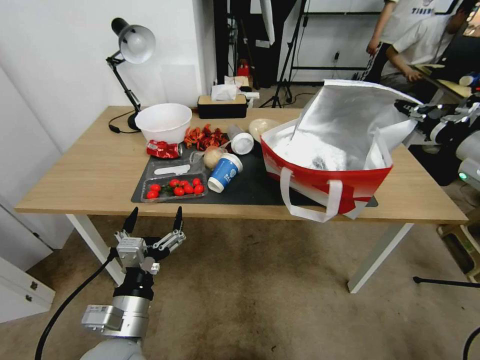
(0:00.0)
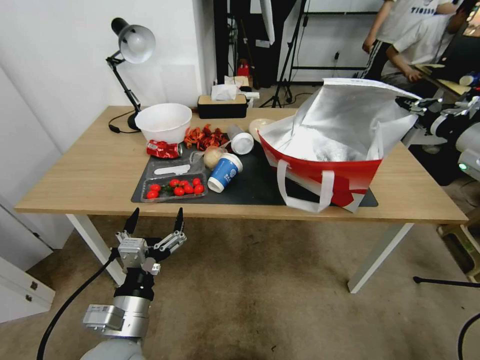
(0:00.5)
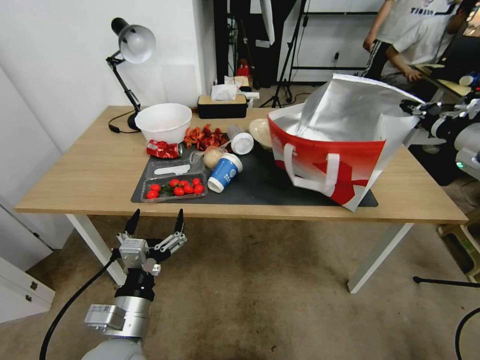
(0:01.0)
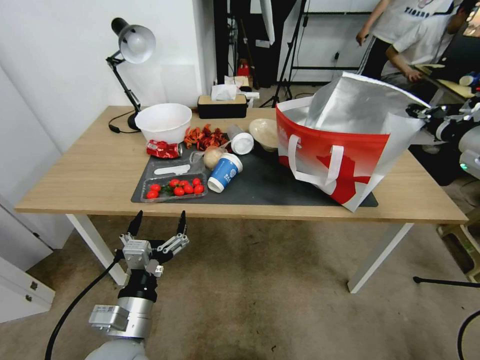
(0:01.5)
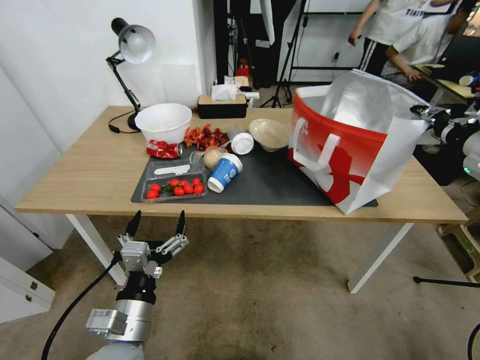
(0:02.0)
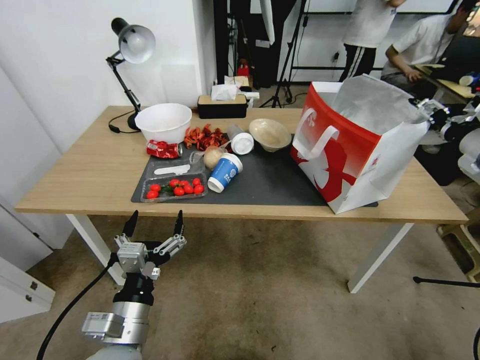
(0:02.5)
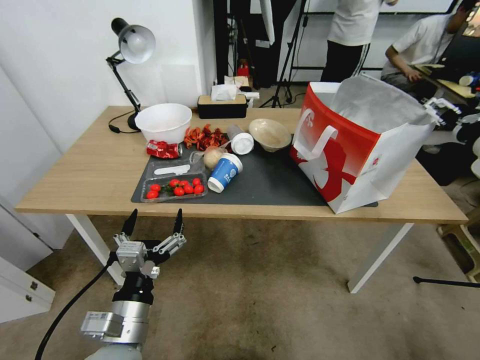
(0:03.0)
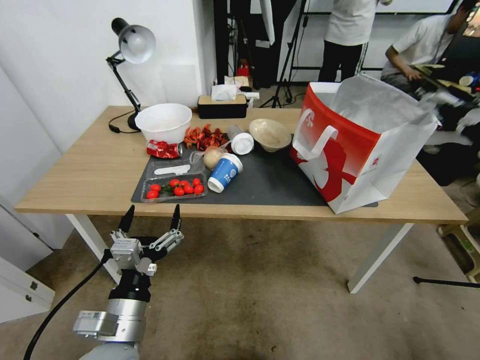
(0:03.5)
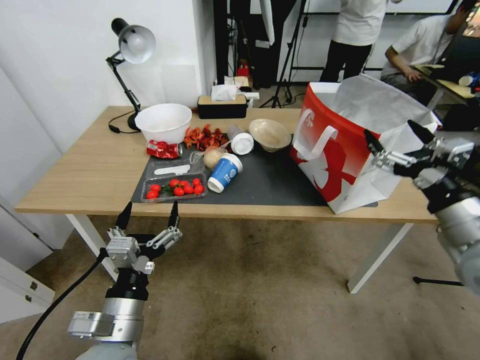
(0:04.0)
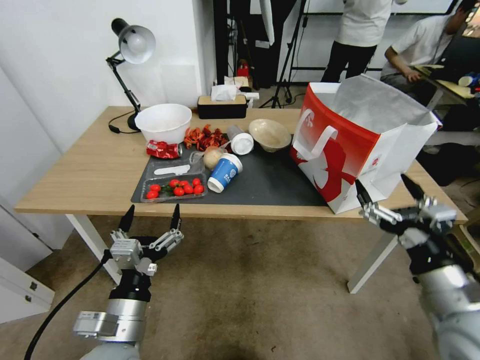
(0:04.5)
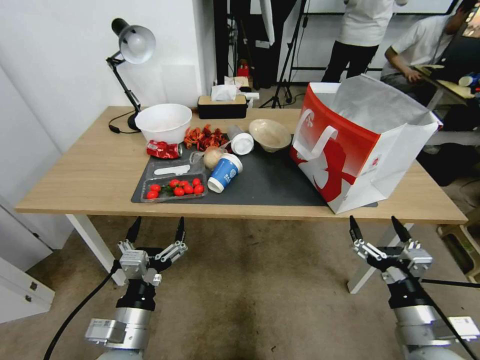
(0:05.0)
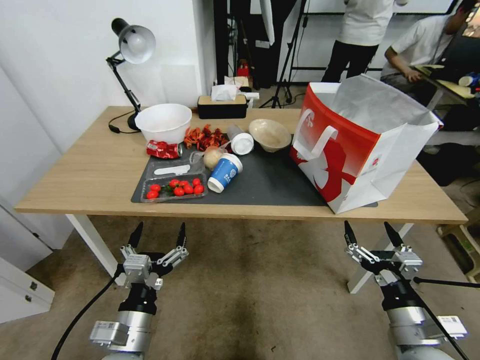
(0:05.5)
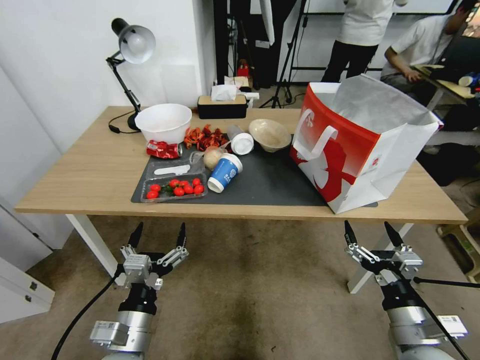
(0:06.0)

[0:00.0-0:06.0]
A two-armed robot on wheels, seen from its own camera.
Task of the whole recording: Pick up the food delivery bag from the floor and place it on the table.
0:00.0 to 0:02.0: The grippers move only a little.
0:02.0 to 0:04.0: The right gripper travels backward, to the left and downward by approximately 20 cm, and opens.
0:04.0 to 0:06.0: The right gripper moves downward and backward, about 20 cm, while the left gripper heads downward, covering about 5 cm.
